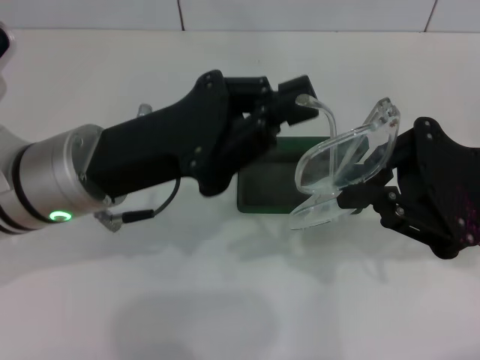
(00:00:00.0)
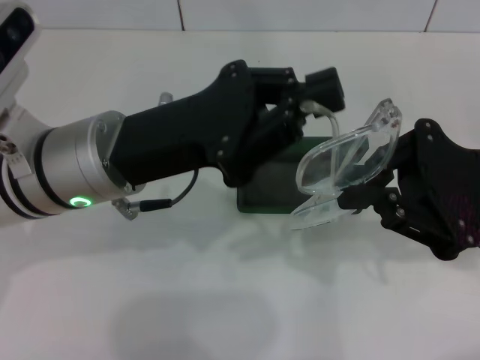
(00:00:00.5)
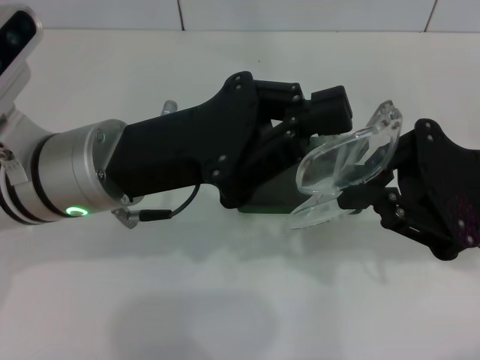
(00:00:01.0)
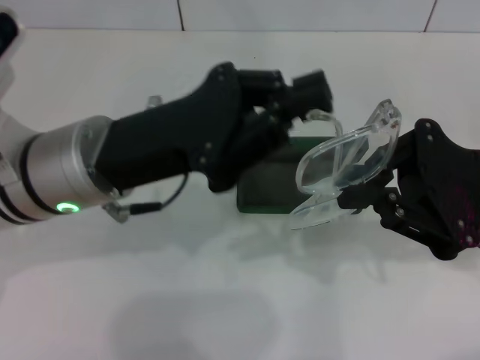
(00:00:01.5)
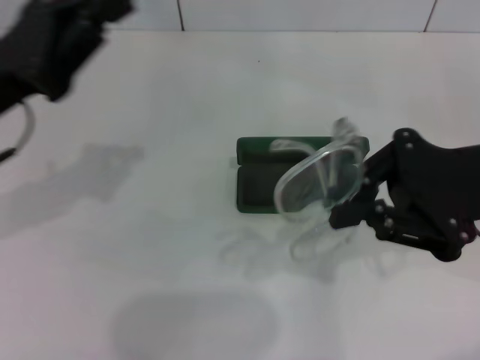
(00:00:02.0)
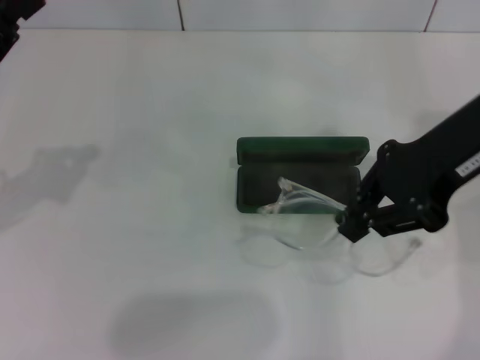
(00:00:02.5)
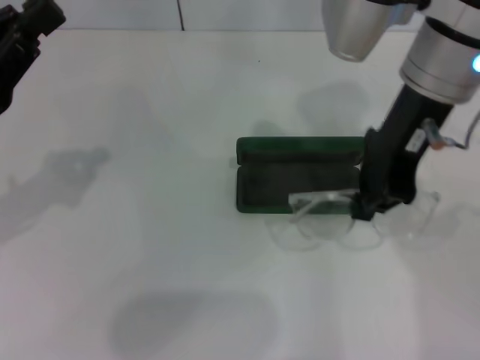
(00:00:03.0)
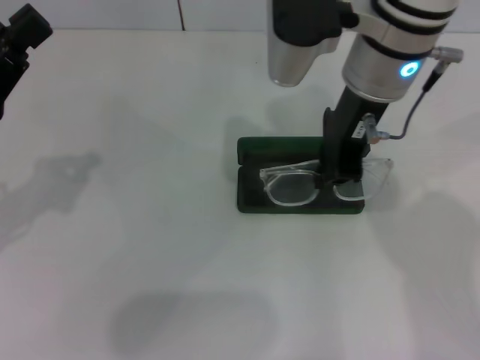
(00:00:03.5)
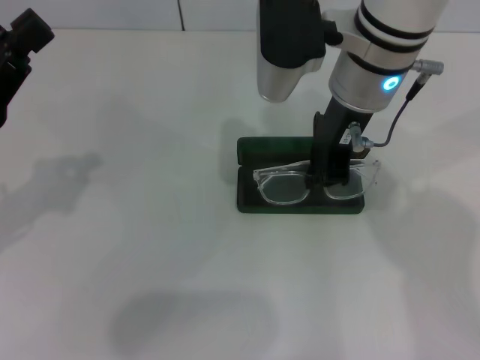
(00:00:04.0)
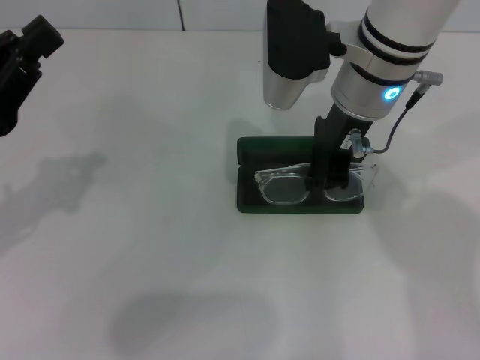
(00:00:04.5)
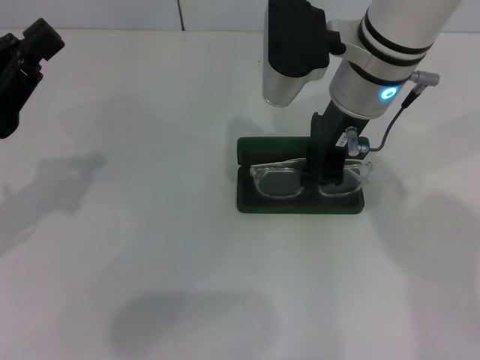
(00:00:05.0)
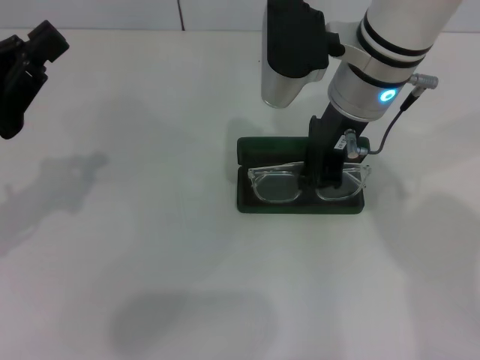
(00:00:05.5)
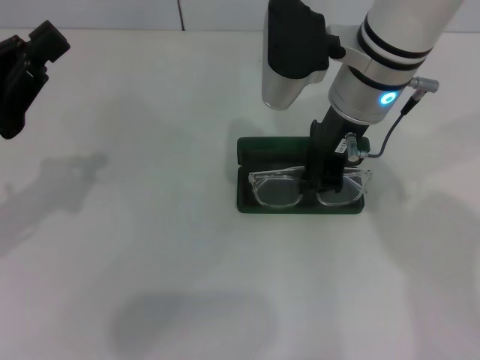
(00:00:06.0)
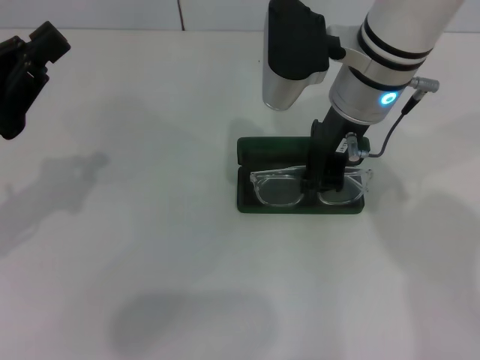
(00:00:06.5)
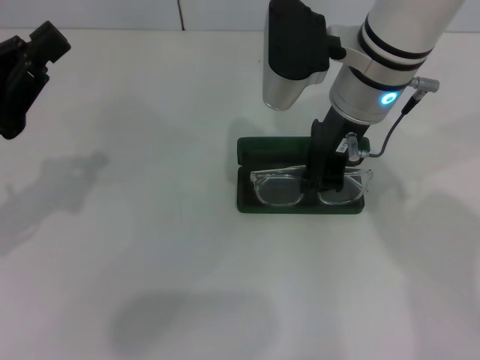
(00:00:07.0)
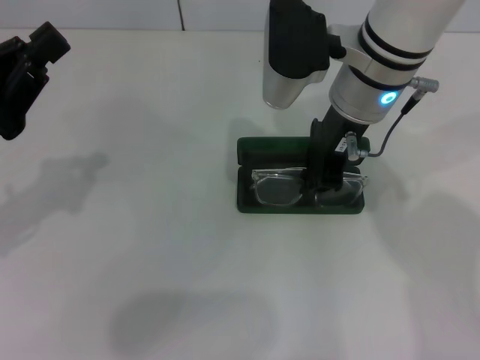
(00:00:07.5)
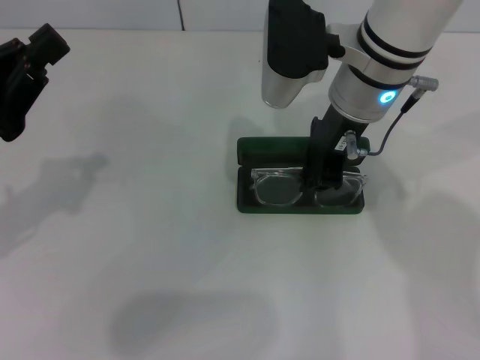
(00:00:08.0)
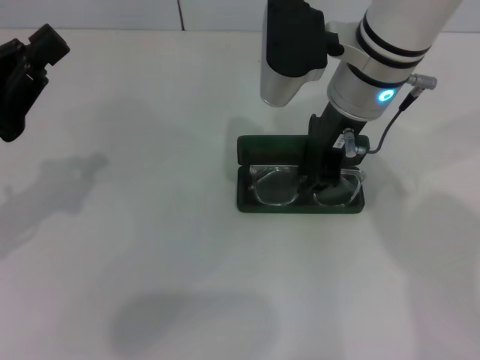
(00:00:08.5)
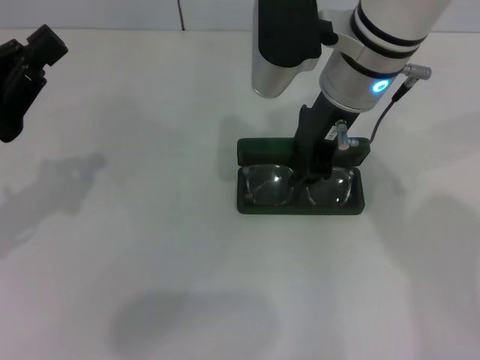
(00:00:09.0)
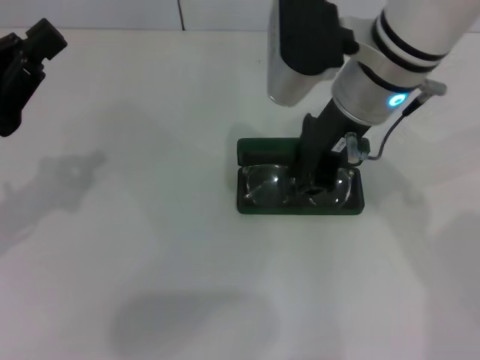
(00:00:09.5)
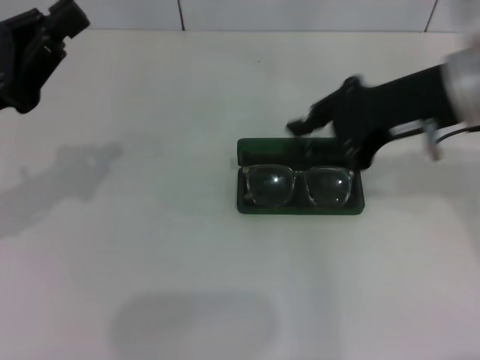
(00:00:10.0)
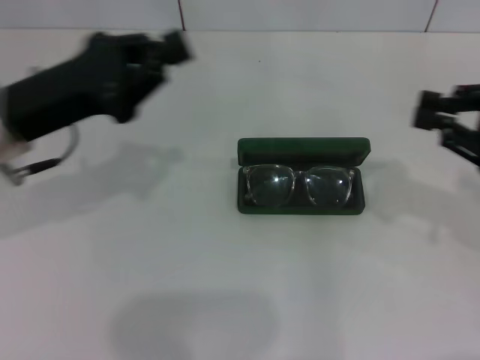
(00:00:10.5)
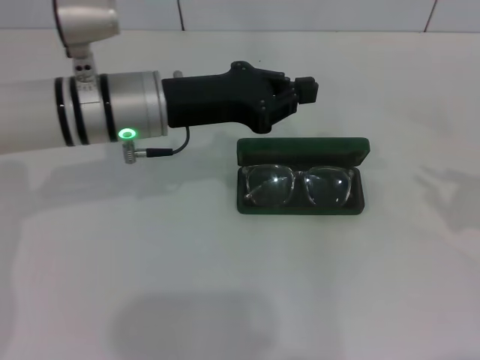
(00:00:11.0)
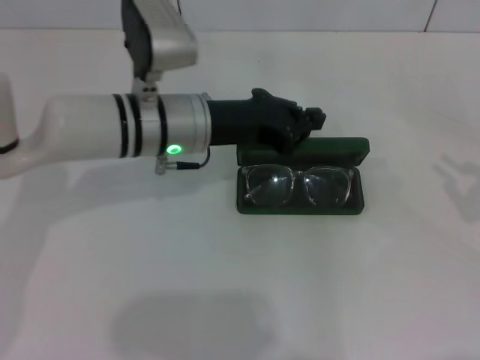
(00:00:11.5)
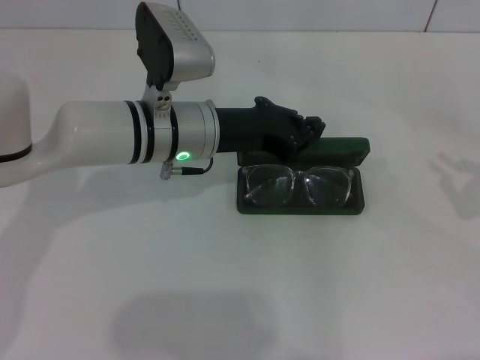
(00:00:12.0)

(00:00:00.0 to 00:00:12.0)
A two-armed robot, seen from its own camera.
Step, 00:00:01.5 - 00:00:09.0: Put the glasses into the case with your right hand.
00:00:00.0 - 00:00:02.0: The left gripper moves to the left, approximately 10 cm.
00:00:02.0 - 00:00:04.0: The right gripper is displaced to the left and forward by some 20 cm, while the left gripper ends up approximately 5 cm from where it was.
00:00:04.0 - 00:00:06.0: The grippers make only small movements.
00:00:06.0 - 00:00:08.0: The two grippers keep their place.
00:00:08.0 - 00:00:10.0: The right gripper shifts some 10 cm to the right and backward.
00:00:10.0 - 00:00:12.0: The left gripper heads to the right and forward, covering approximately 20 cm. Meanwhile the right gripper moves to the right, downward and backward, about 25 cm.

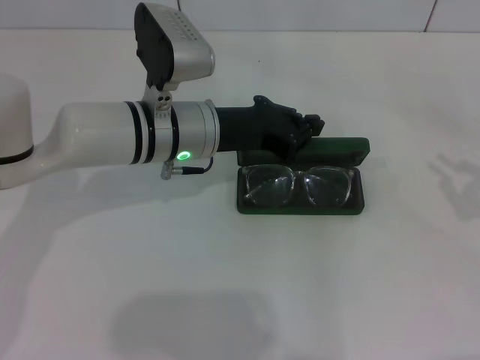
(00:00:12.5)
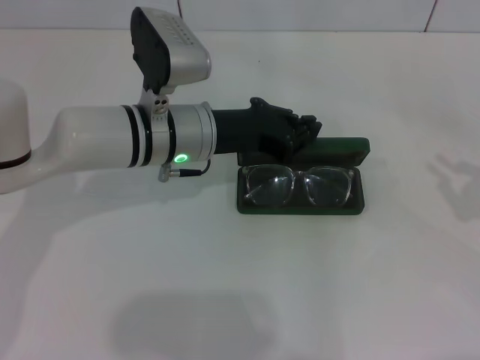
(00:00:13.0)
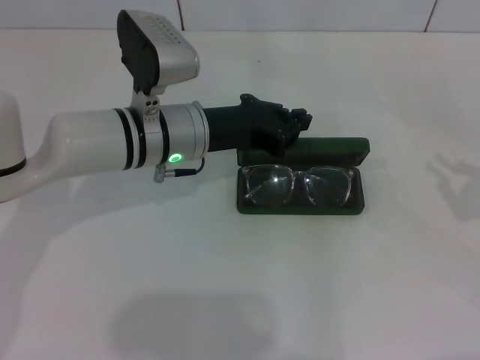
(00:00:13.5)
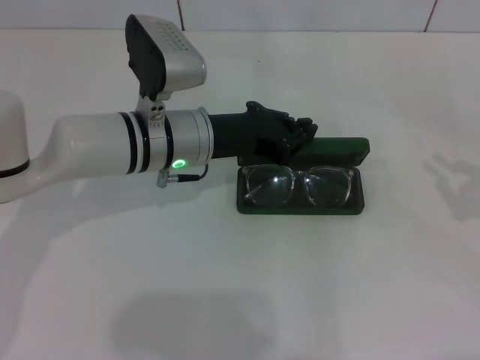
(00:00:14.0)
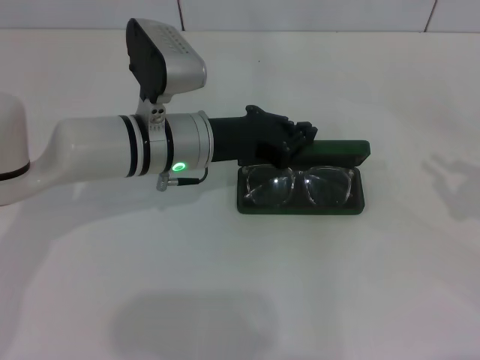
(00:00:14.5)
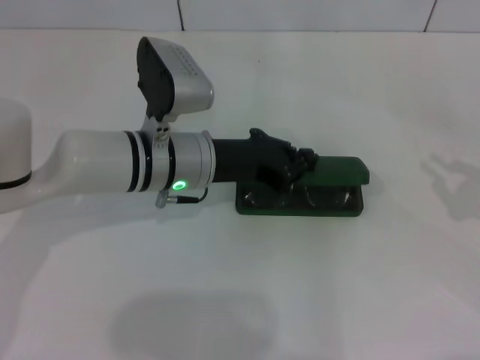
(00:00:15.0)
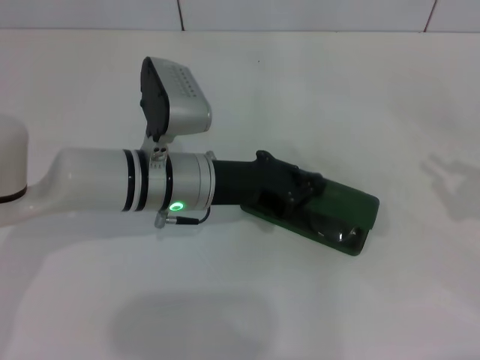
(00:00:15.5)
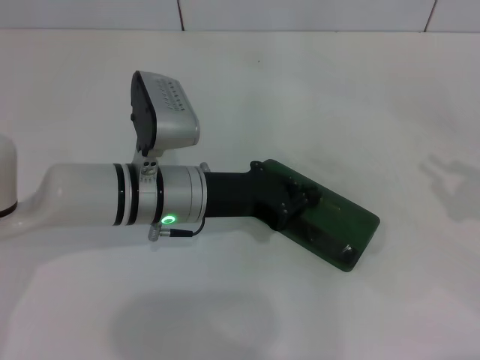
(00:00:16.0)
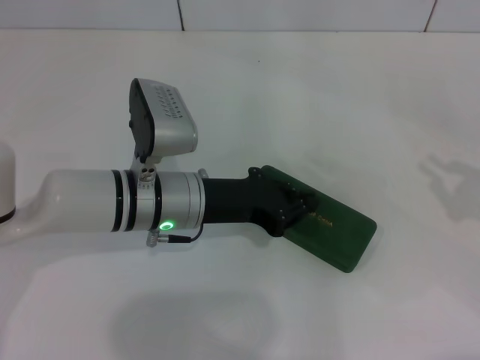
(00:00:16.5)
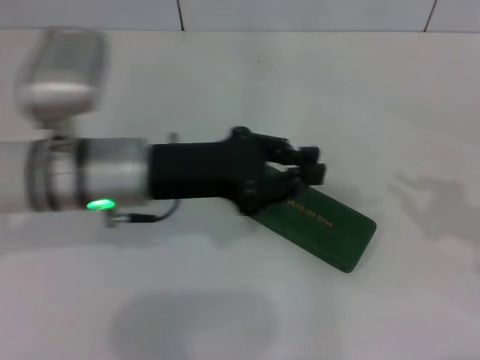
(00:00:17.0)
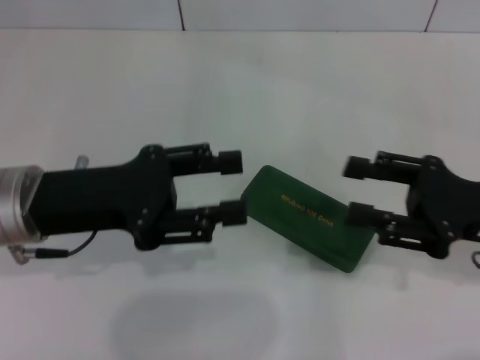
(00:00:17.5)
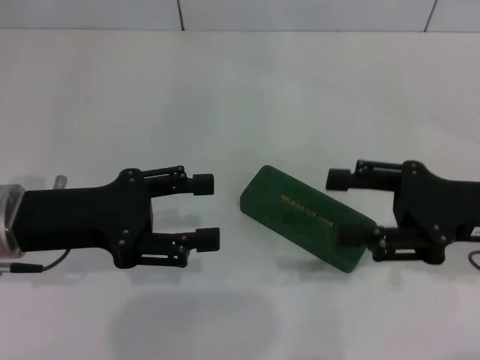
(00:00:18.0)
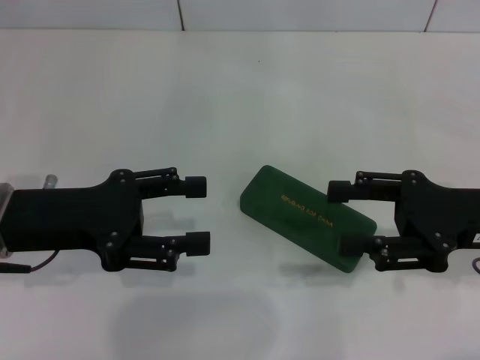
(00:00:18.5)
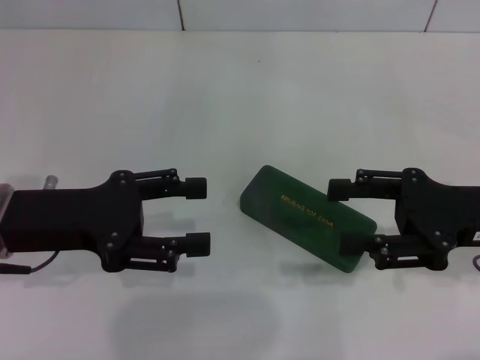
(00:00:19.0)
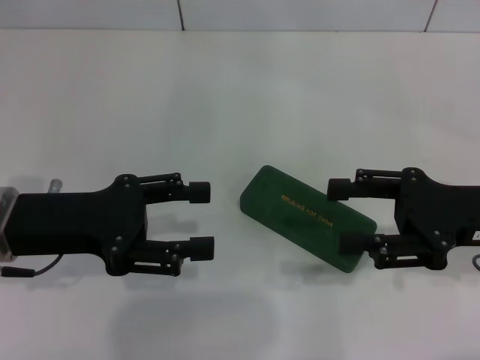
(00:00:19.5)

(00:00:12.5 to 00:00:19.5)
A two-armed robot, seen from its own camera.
Step, 00:00:12.5 - 00:00:16.0: Close the glasses case with your left hand.
00:00:12.5 - 00:00:16.0: The grippers stay close to where they were, moving slightly.
00:00:16.0 - 00:00:17.5: The left gripper shifts some 15 cm to the left, upward and backward. The right gripper is displaced to the left by approximately 10 cm, and opens up.
00:00:17.5 - 00:00:19.5: The left gripper opens its fingers.
